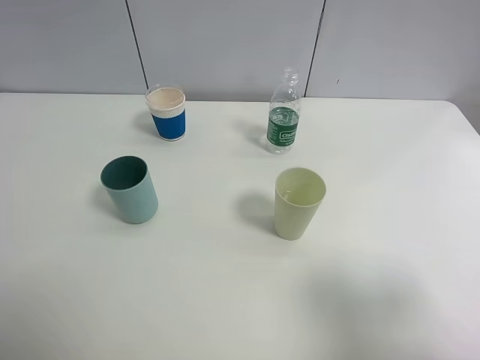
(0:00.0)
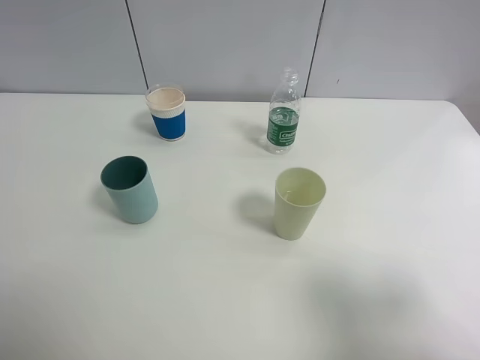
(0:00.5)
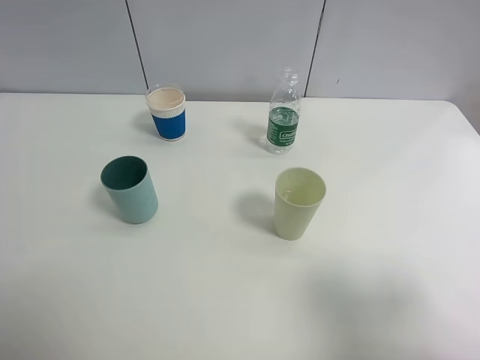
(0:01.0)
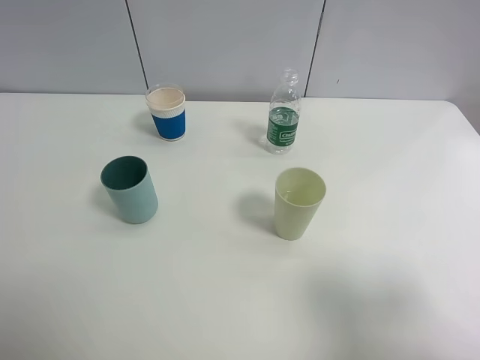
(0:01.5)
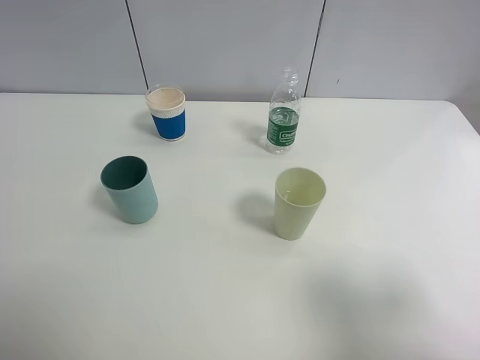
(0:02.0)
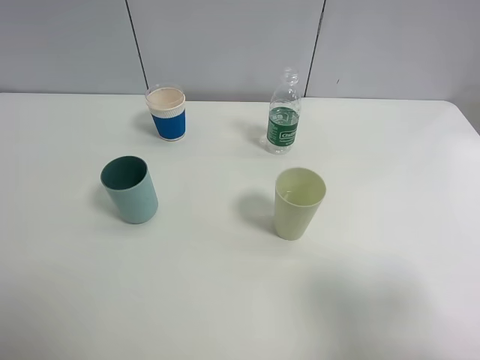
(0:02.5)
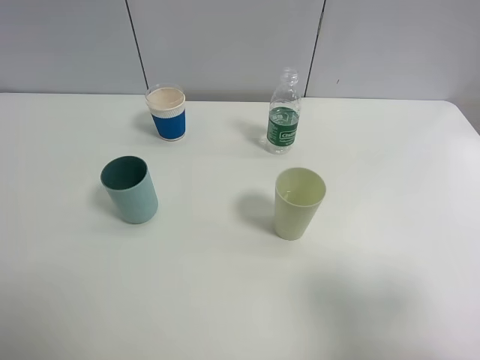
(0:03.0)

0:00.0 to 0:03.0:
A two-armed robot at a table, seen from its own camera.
Task of the whole recording: use a clamp to hold the bottle of the drink, pour the beverage into a random cup, then clamp the cup containing the drink and pour the drink into another random cup.
0:01.5 to 0:03.0: Both grippers stay put.
